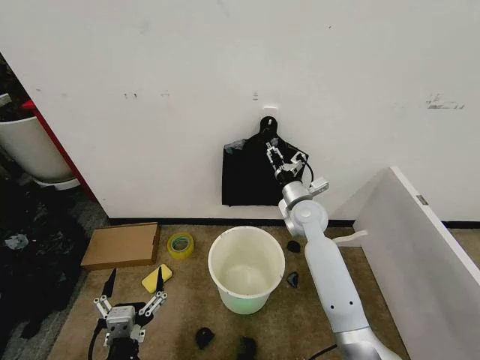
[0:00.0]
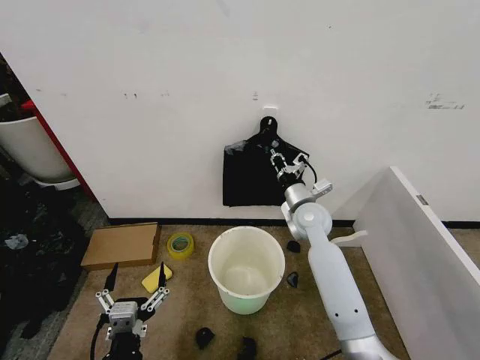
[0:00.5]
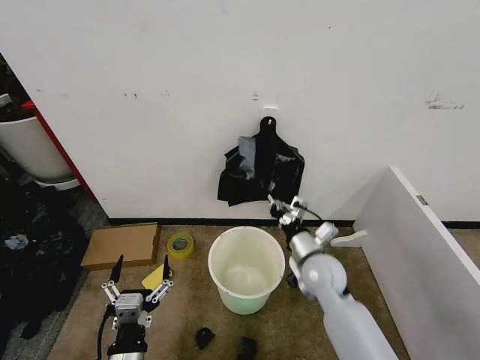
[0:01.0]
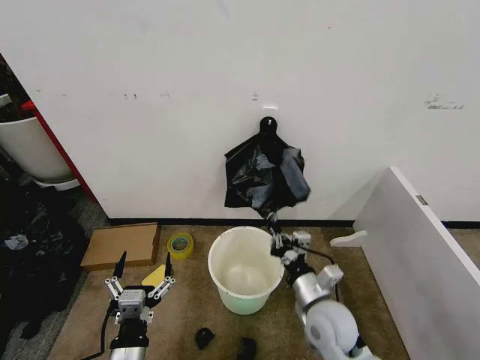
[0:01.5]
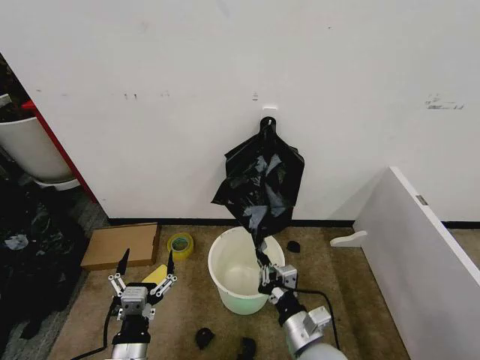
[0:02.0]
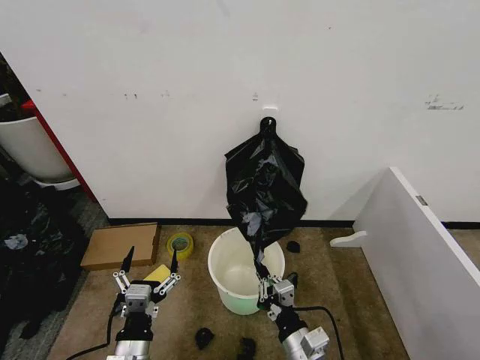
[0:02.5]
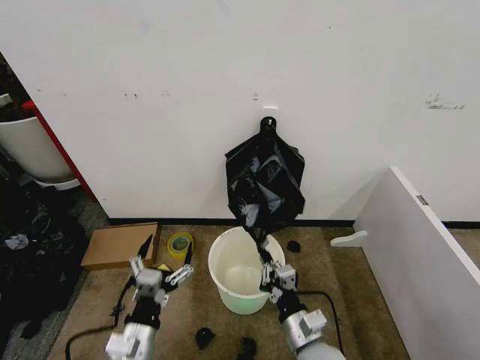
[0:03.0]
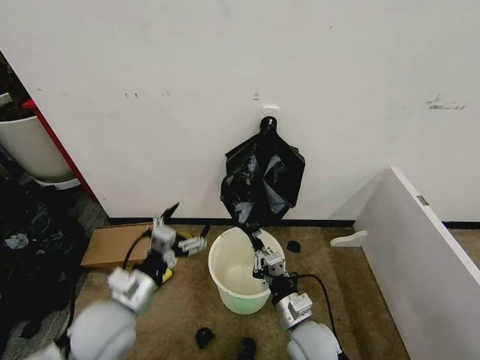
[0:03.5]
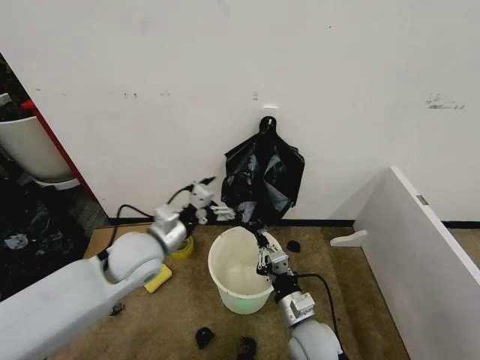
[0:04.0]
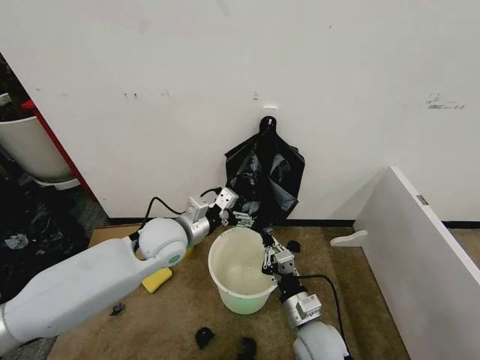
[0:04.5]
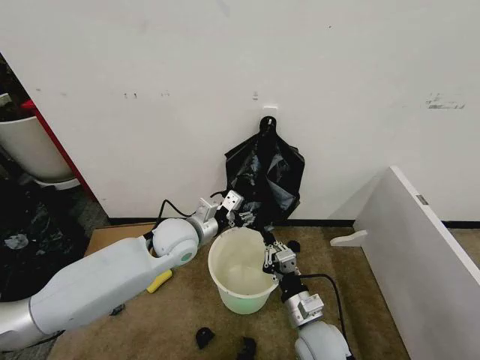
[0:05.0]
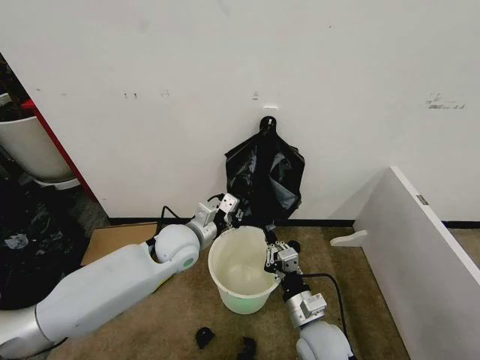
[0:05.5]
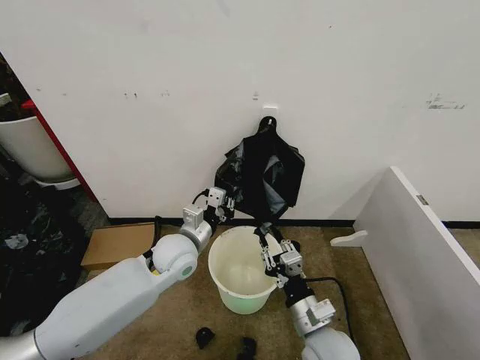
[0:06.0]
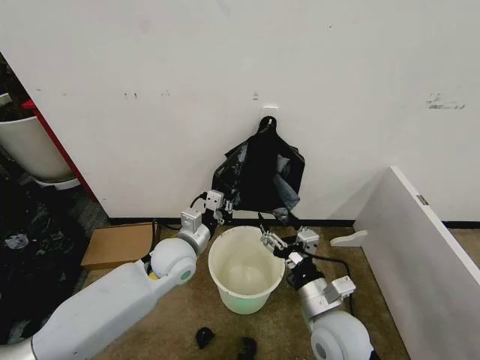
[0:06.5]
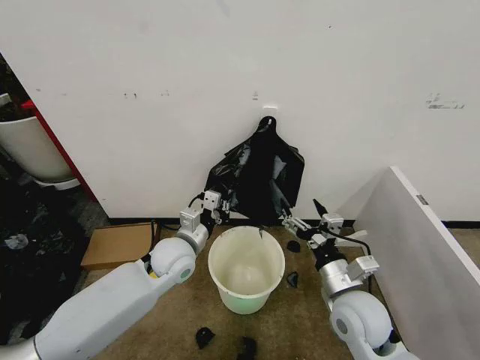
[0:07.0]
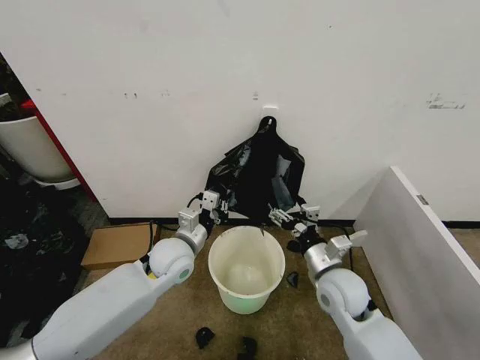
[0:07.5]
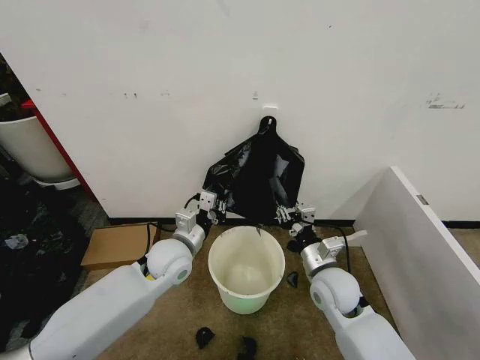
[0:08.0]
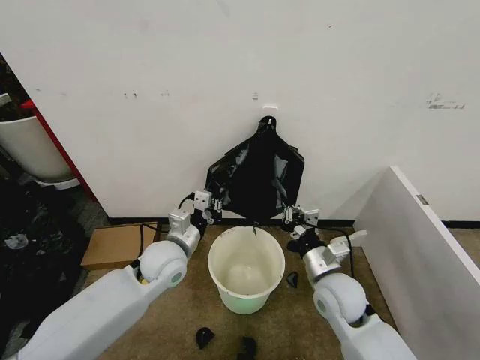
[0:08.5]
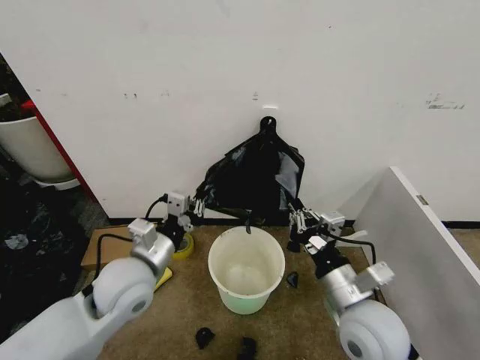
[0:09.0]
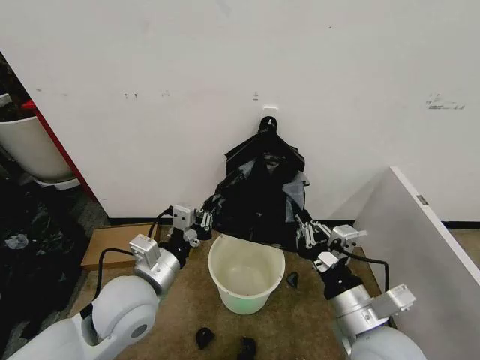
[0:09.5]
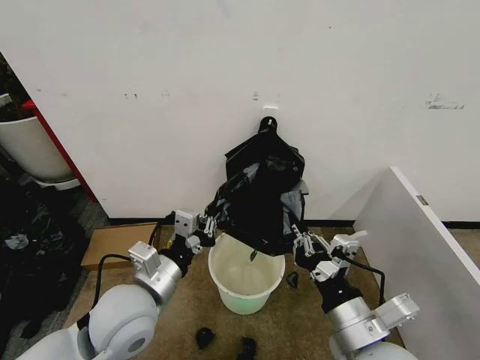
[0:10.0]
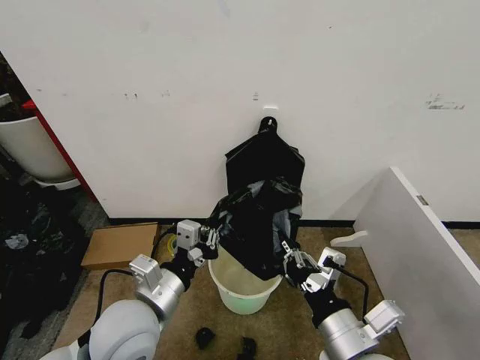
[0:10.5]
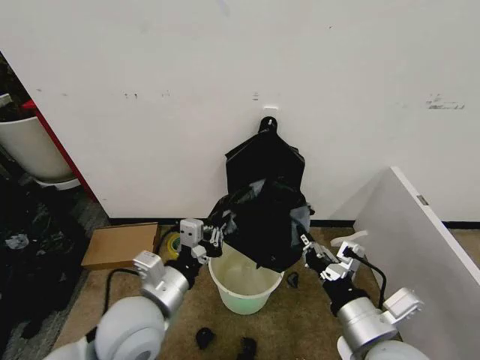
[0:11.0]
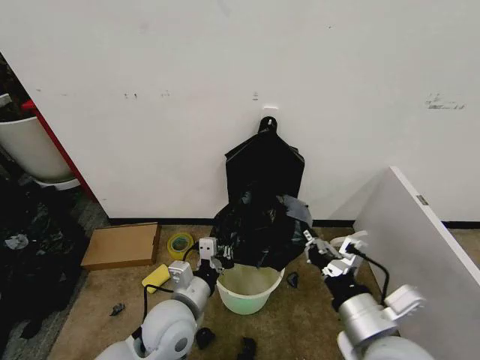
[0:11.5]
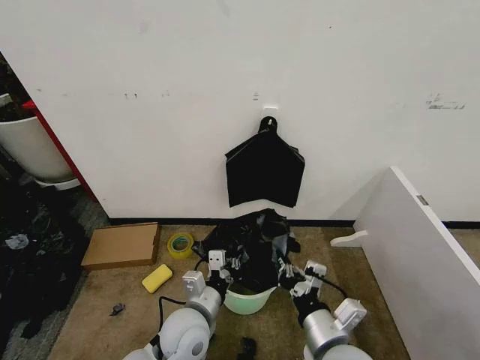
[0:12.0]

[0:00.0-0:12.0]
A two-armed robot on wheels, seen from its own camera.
Task of the whole recording: Place the garbage bag over the trash bin.
0:00.0 to 0:02.0: The right gripper goes about 30 cm backward, and closes up.
0:02.0 to 0:04.0: The left gripper heads forward and upward, covering about 25 cm.
0:04.0 to 0:06.0: The left gripper goes some 10 cm downward and to the right, and closes.
0:06.0 to 0:08.0: The right gripper is displaced forward by about 10 cm, and opens, then closes once more.
0:08.0 to 0:10.0: The grippers both shift backward and upward by some 20 cm. The right gripper closes its fingers.
0:10.0 to 0:12.0: The right gripper travels downward by approximately 10 cm. Meanwhile the left gripper travels downward and to the right by some 15 cm.

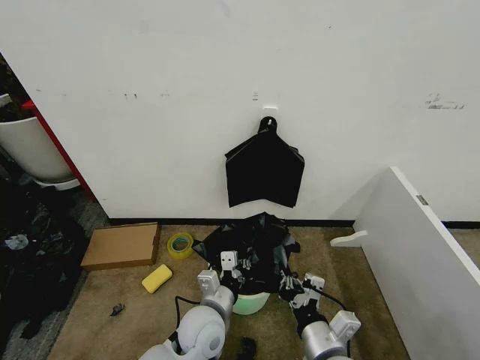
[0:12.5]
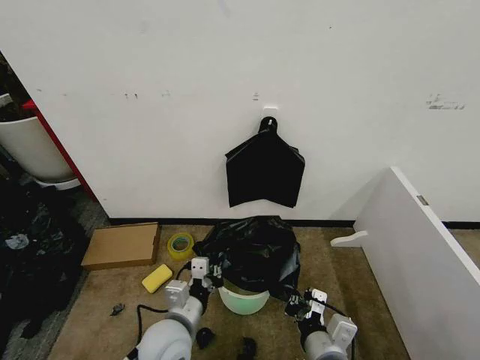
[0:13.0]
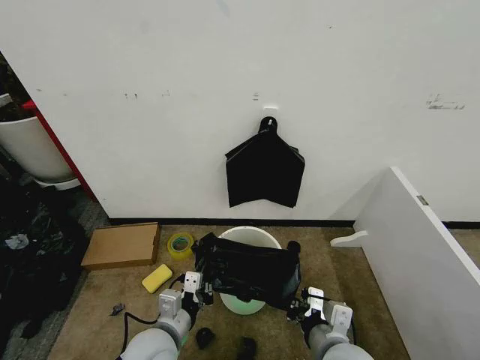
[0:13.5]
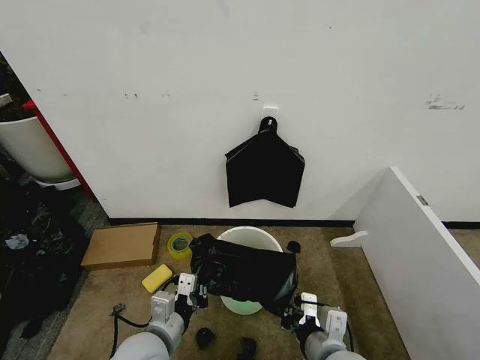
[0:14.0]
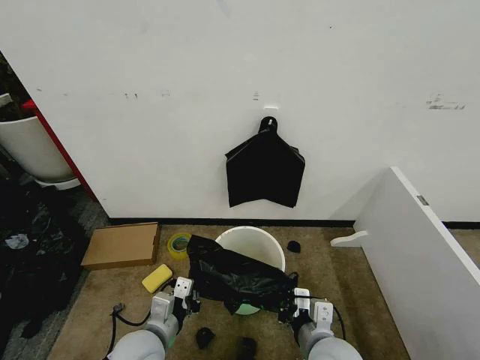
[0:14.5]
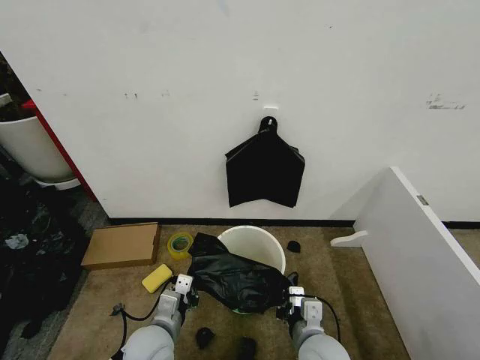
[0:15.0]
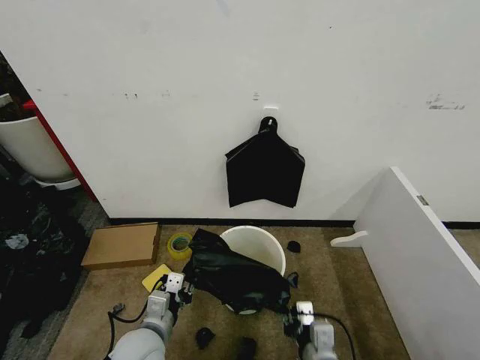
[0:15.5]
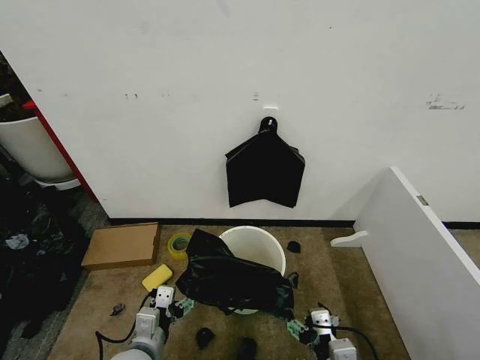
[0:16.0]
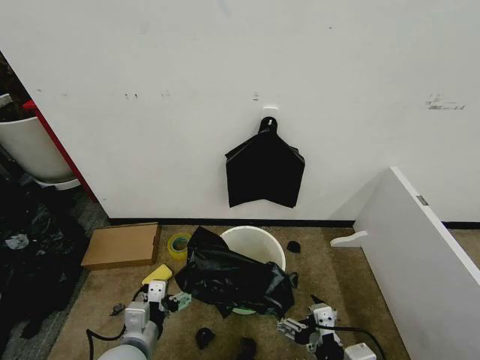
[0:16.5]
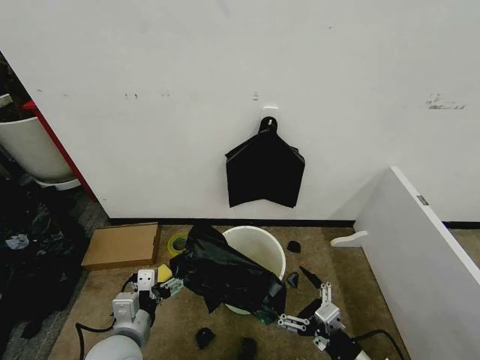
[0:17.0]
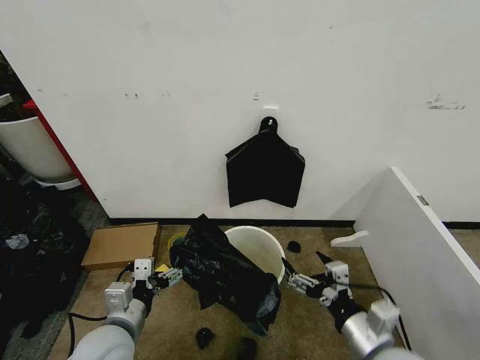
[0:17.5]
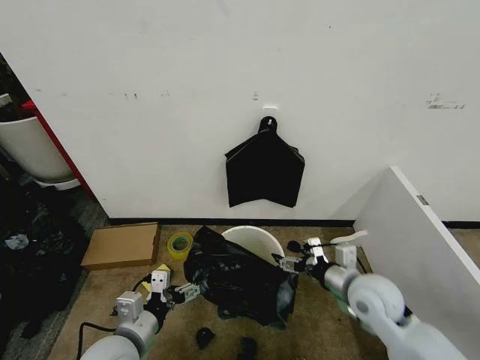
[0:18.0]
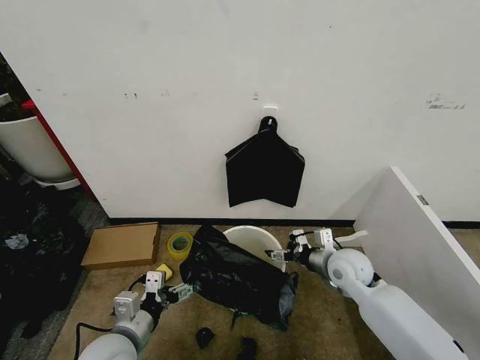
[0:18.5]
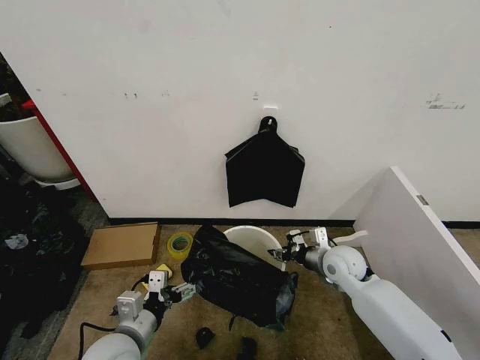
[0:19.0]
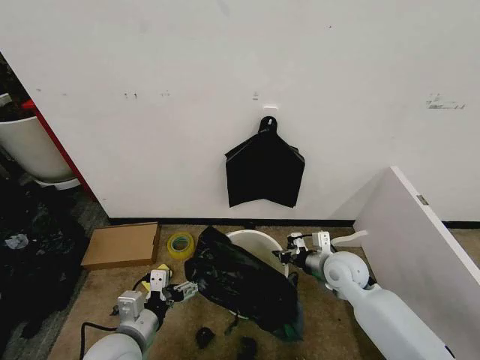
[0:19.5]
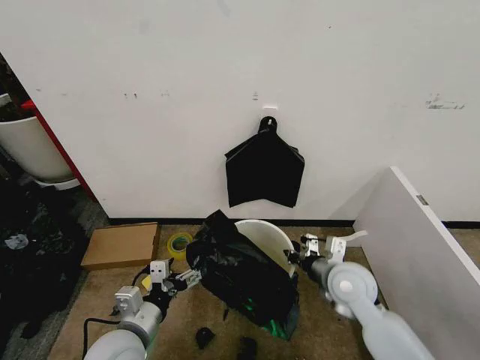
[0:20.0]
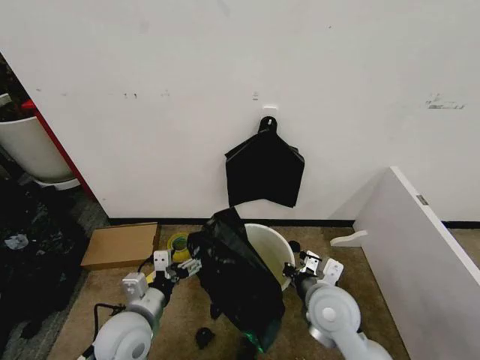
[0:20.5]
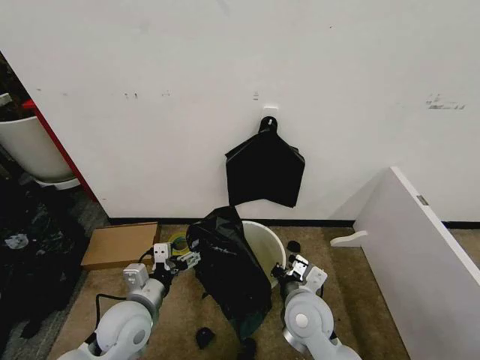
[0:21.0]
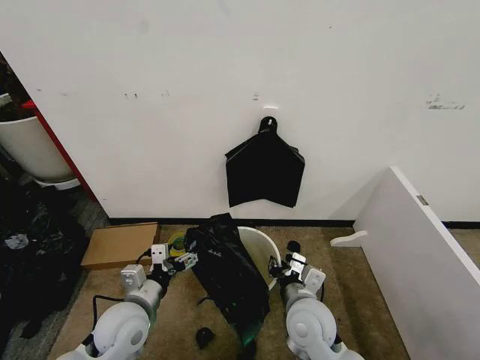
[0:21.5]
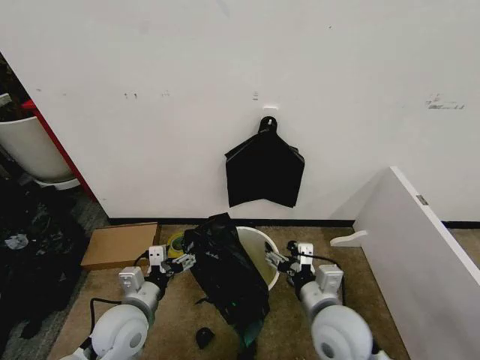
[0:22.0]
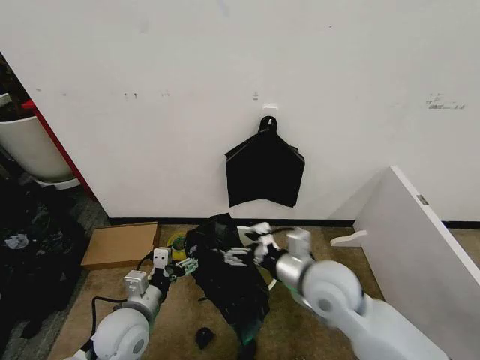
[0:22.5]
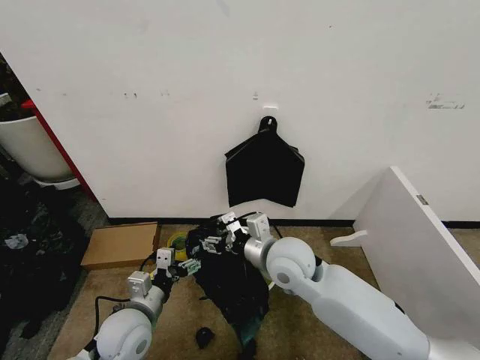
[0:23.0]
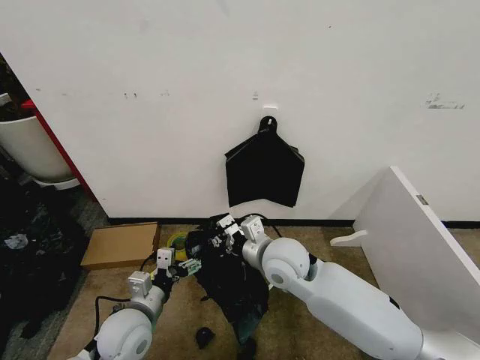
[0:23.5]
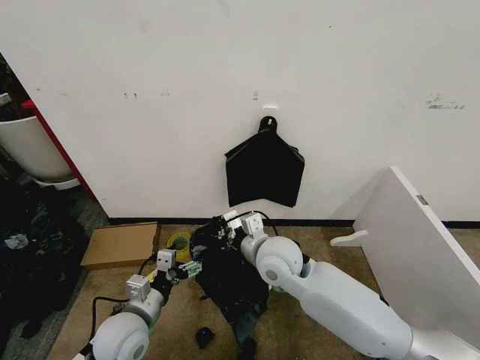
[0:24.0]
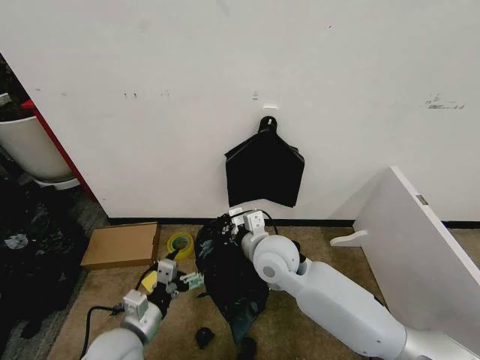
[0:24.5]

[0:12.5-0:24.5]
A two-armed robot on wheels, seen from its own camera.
Task of the whole recording: Place the garbage bag over the trash bin.
0:12.5 to 0:14.5: The left gripper goes about 10 cm to the left.
0:14.5 to 0:16.5: The left gripper opens its fingers. The right gripper heads backward, covering roughly 10 cm, and opens its fingers.
0:16.5 to 0:18.5: The right gripper moves forward, some 30 cm.
0:18.5 to 0:20.5: The right gripper goes approximately 15 cm backward and to the left, and closes.
0:20.5 to 0:22.5: The right gripper is displaced upward by roughly 10 cm, and opens.
0:22.5 to 0:24.5: The right gripper shifts some 15 cm to the left and forward, and closes its fingers.

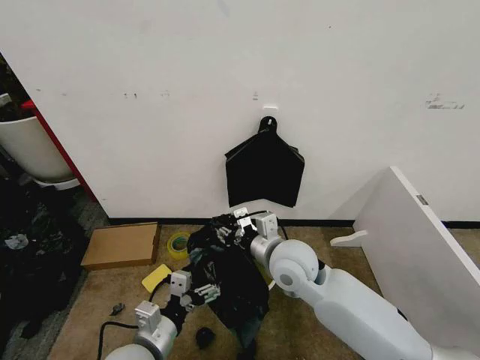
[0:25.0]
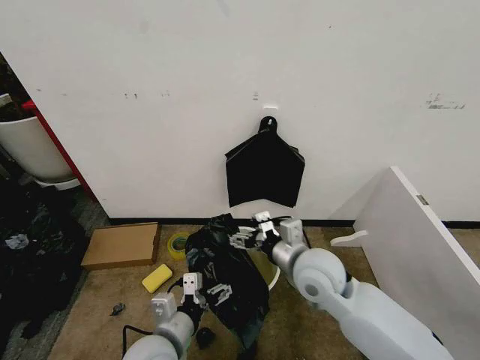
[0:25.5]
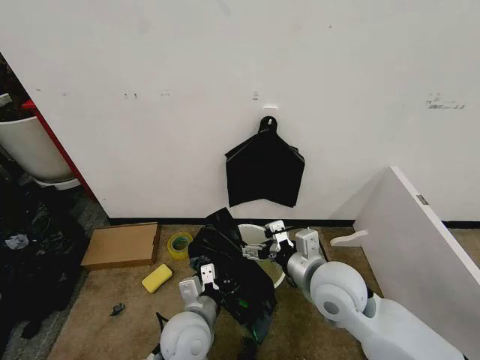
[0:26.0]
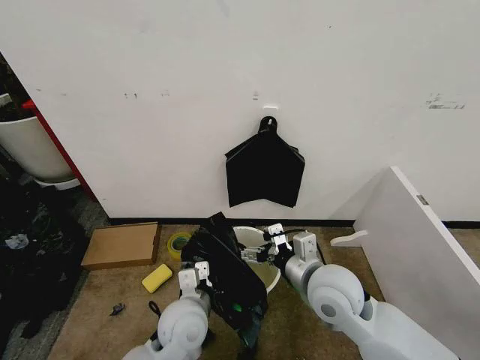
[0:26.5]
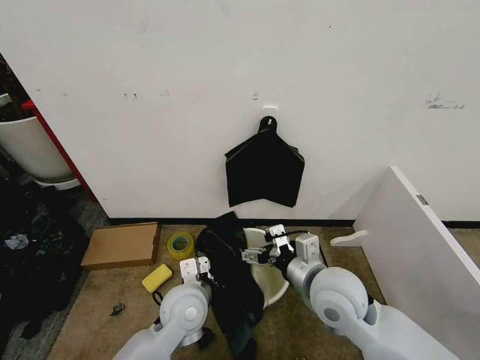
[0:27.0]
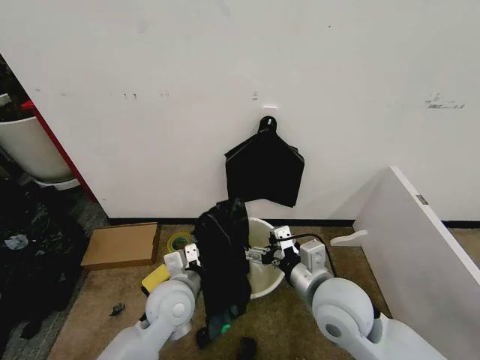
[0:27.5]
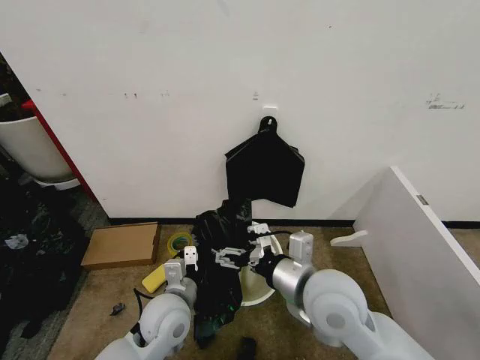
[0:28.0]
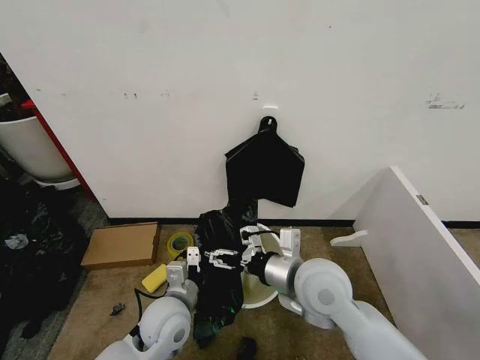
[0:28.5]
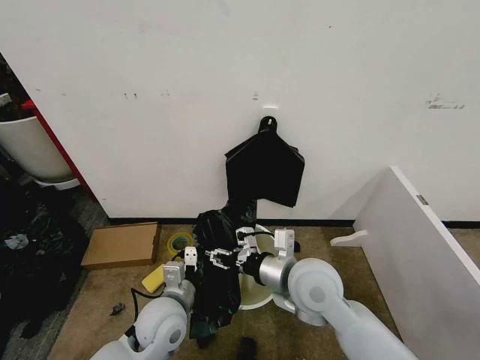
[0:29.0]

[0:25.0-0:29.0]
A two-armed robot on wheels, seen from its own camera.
Task of the whole recording: Place the garbage bag over the trash bin.
0:25.0 to 0:27.0: The left gripper is displaced forward and to the right by approximately 15 cm, and closes. Meanwhile the right gripper goes roughly 10 cm to the right and backward, and opens its fingers.
0:27.0 to 0:29.0: The right gripper closes.
